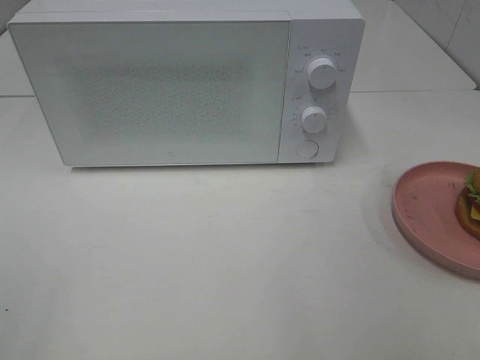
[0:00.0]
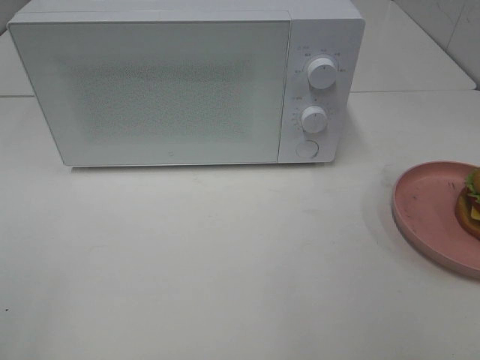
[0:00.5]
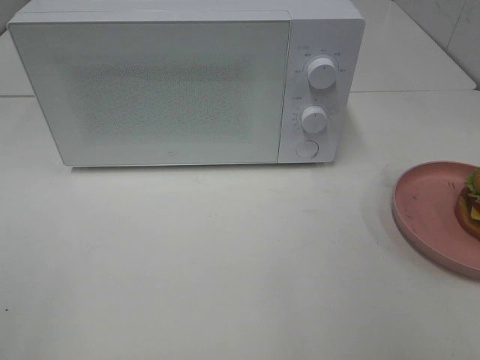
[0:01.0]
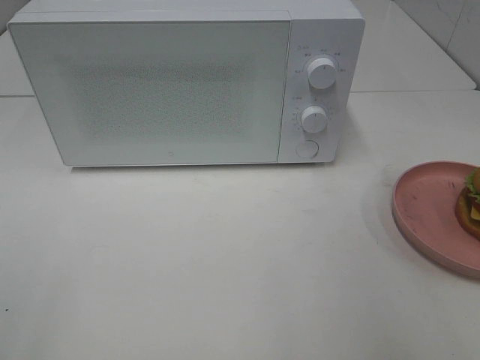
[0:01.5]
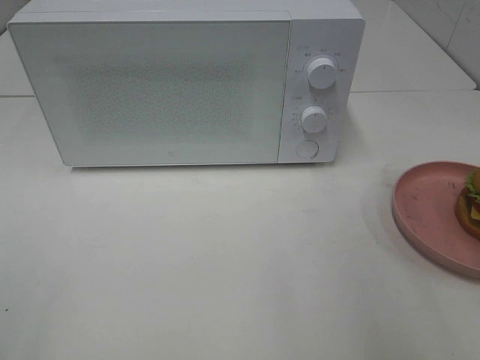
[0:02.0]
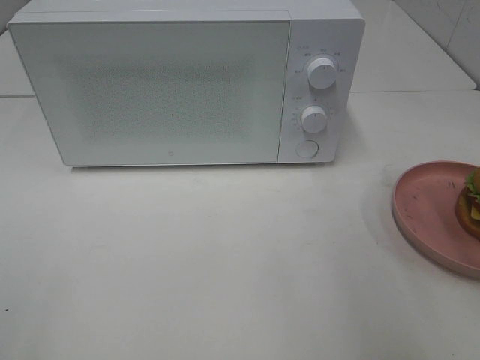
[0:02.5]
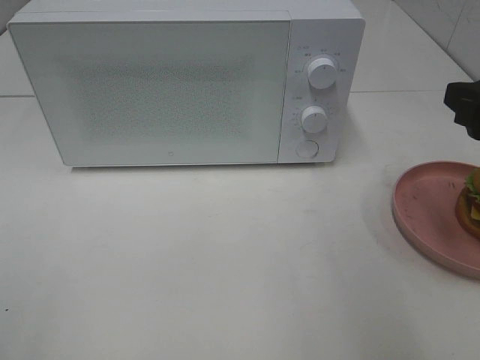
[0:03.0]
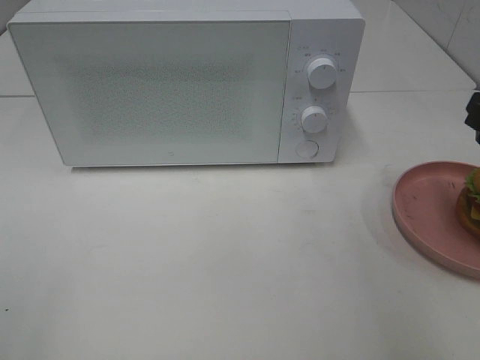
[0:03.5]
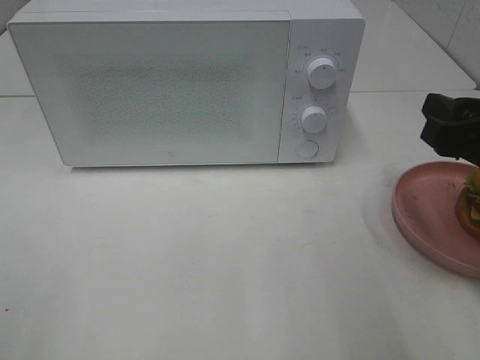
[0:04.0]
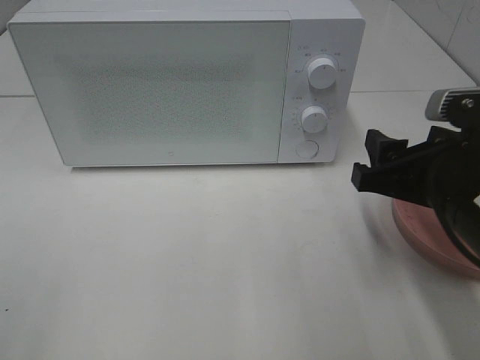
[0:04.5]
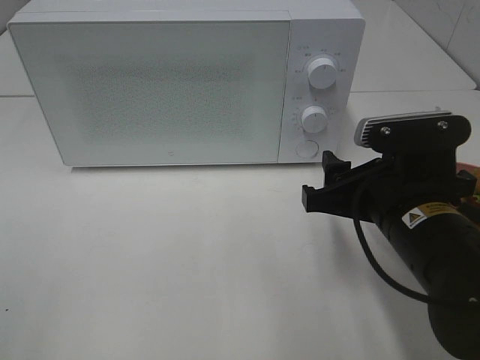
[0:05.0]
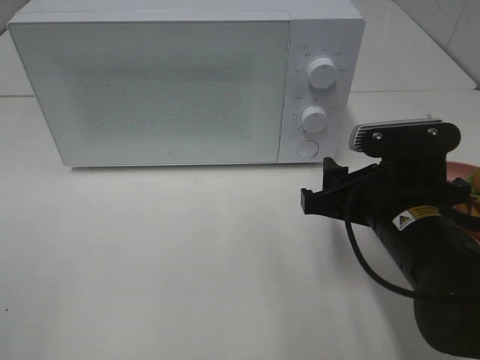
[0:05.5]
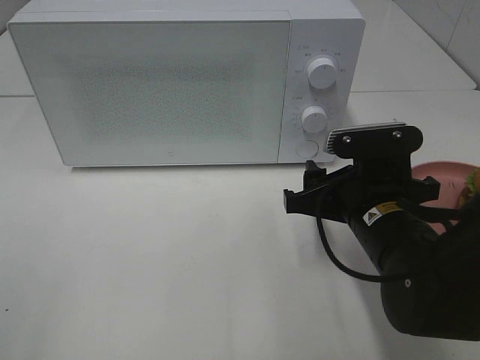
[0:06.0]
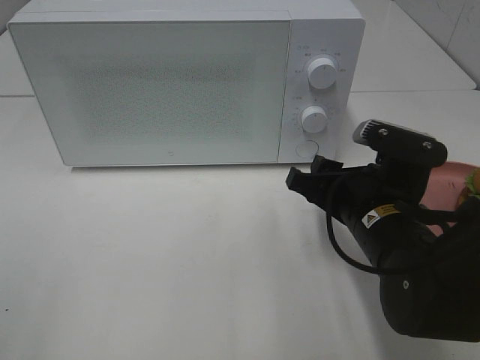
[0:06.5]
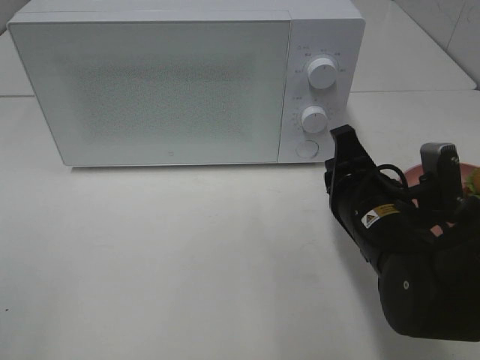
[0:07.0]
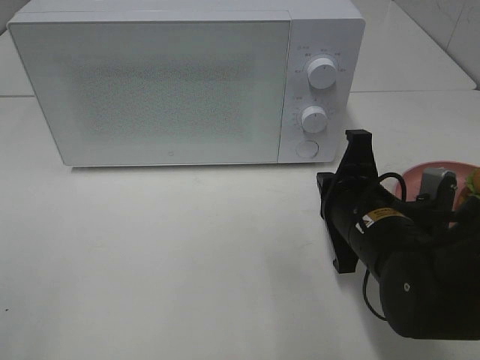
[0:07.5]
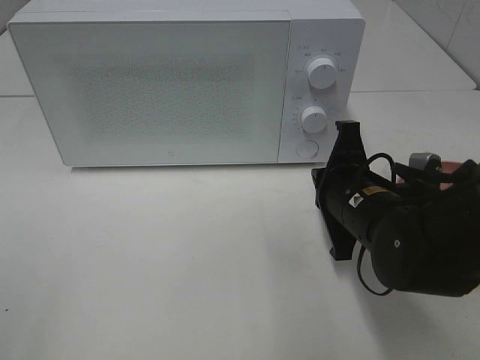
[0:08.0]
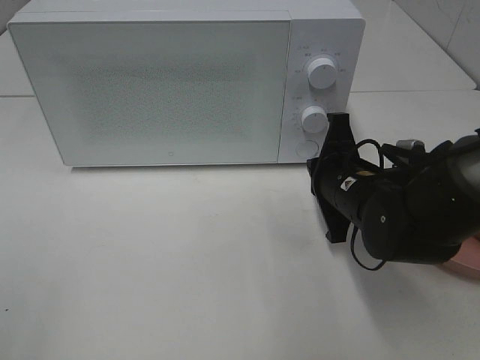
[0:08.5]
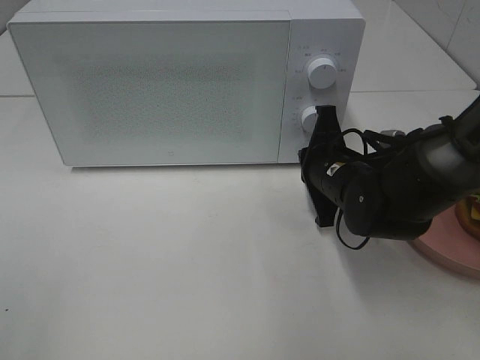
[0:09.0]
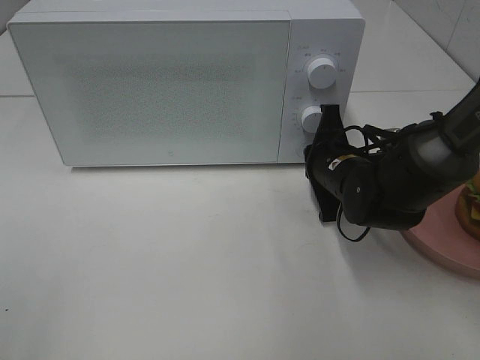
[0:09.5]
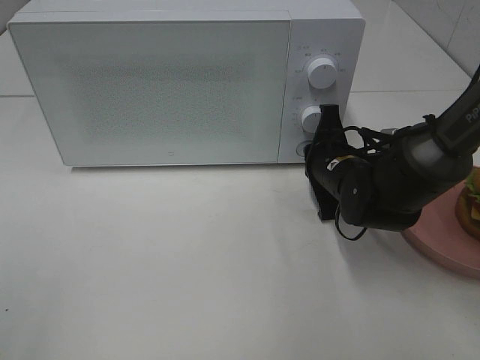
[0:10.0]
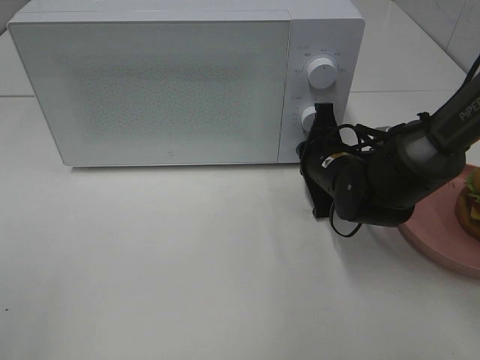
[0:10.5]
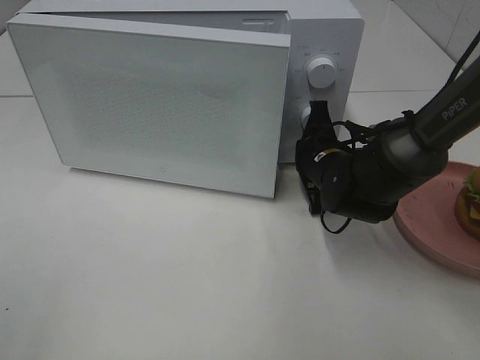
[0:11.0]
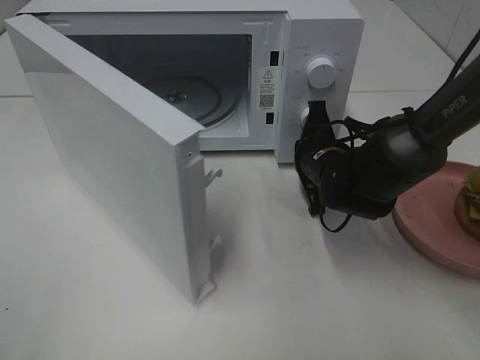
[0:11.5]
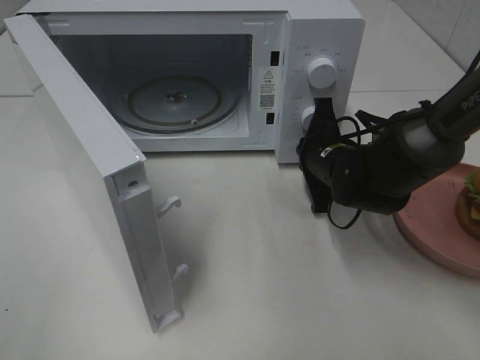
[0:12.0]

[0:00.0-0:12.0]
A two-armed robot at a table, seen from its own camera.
Task of the whole recording: Heat the burger.
0:02.0 to 0:04.0: The right gripper heads forward and downward, covering about 10 cm.
0:04.0 to 0:06.0: The right gripper shifts approximately 15 cm to the left and downward.
0:06.0 to 0:08.0: The right gripper closes.
0:08.0 to 0:10.0: The right gripper is displaced forward by about 10 cm.

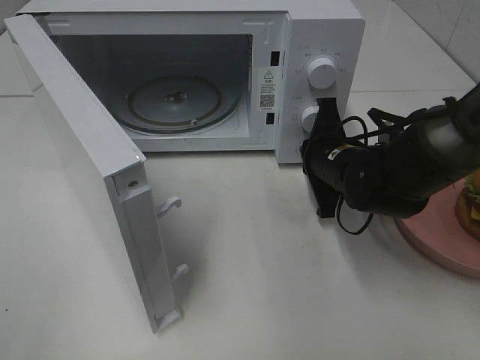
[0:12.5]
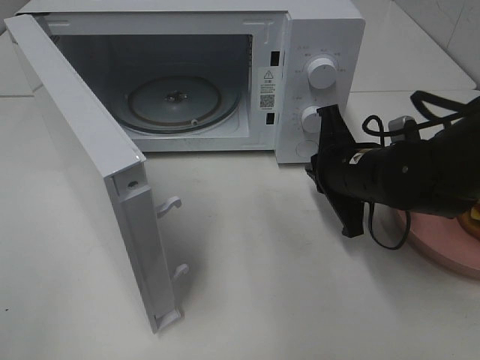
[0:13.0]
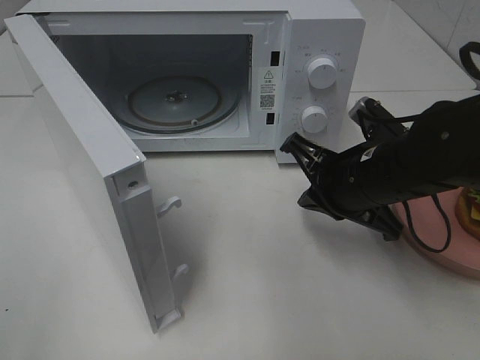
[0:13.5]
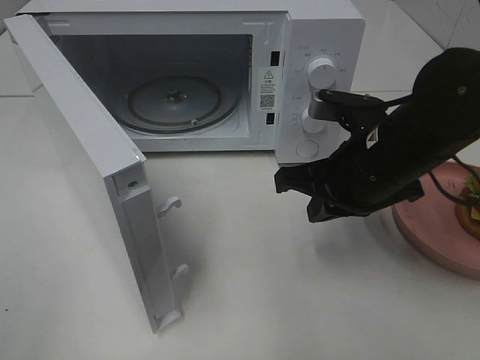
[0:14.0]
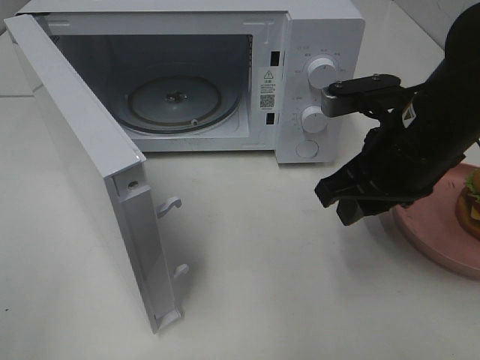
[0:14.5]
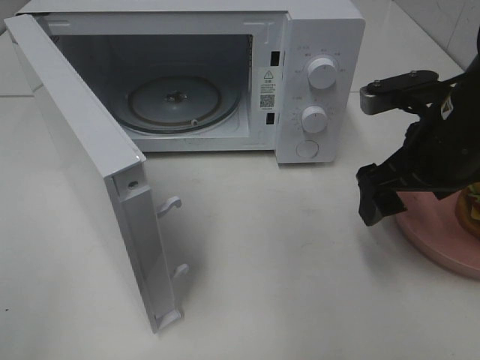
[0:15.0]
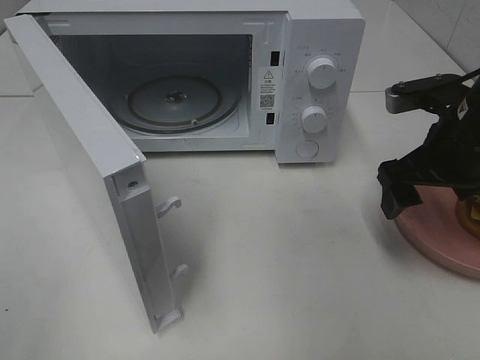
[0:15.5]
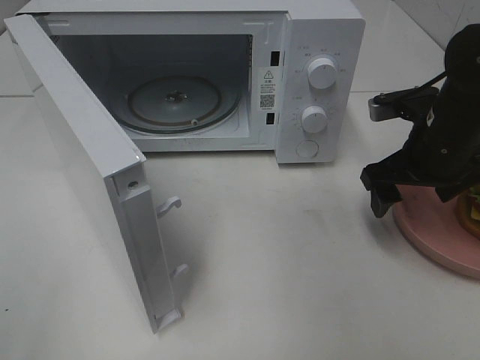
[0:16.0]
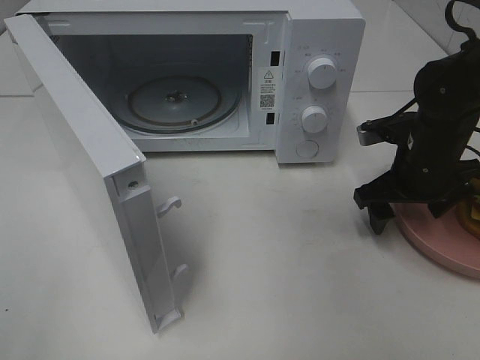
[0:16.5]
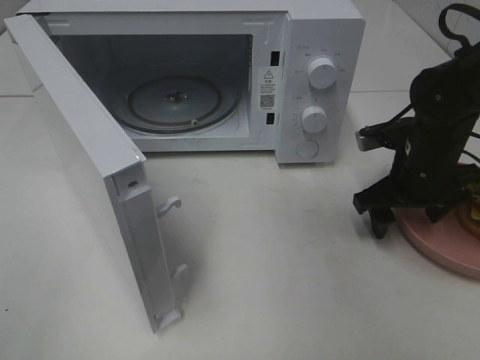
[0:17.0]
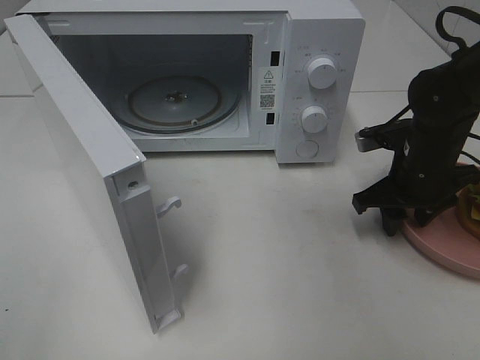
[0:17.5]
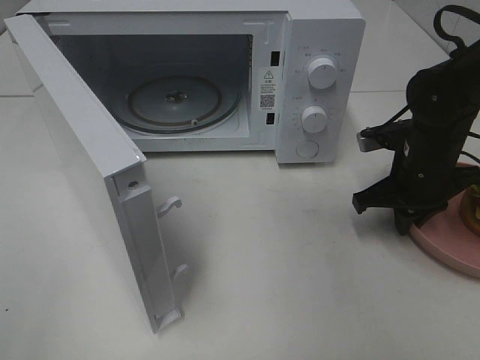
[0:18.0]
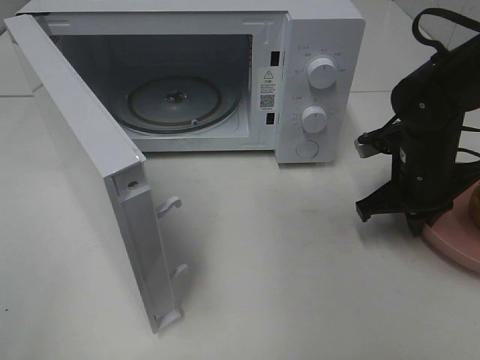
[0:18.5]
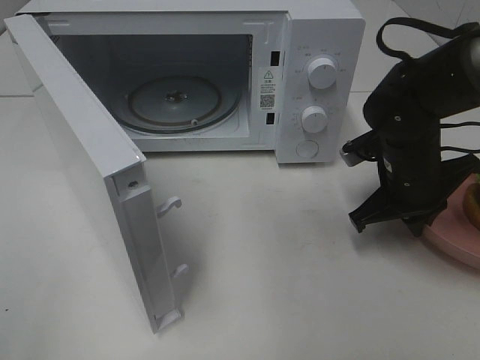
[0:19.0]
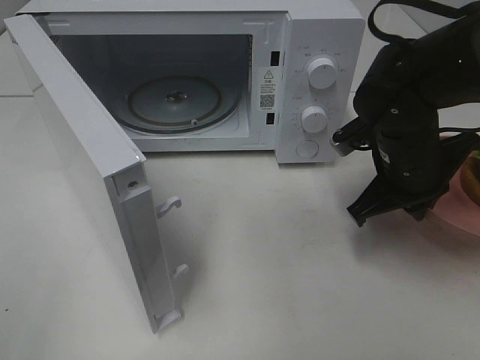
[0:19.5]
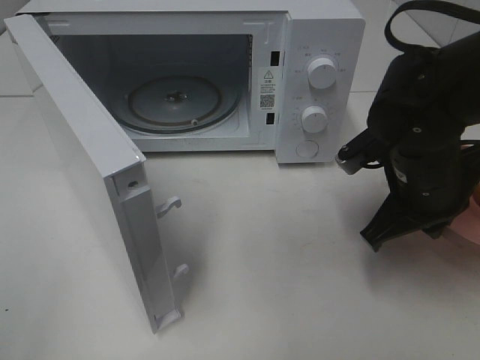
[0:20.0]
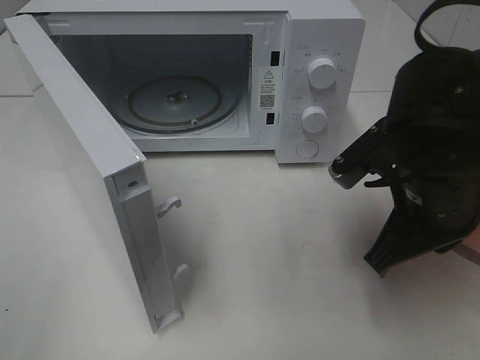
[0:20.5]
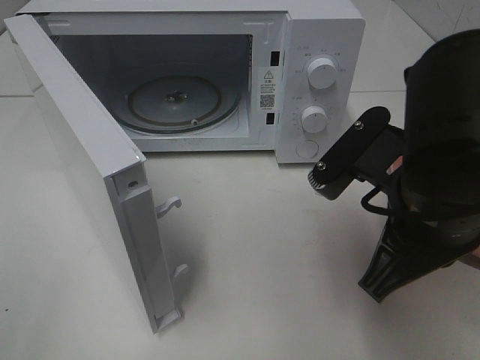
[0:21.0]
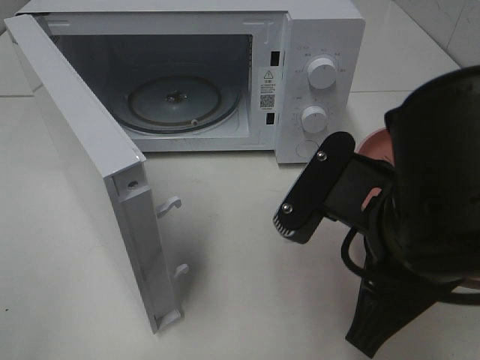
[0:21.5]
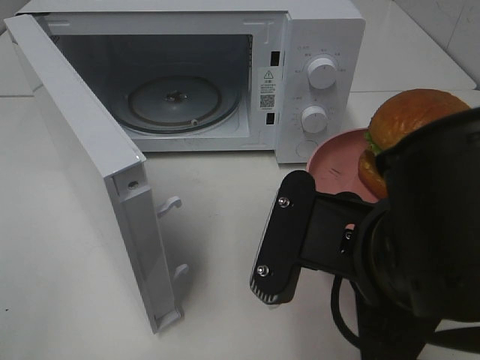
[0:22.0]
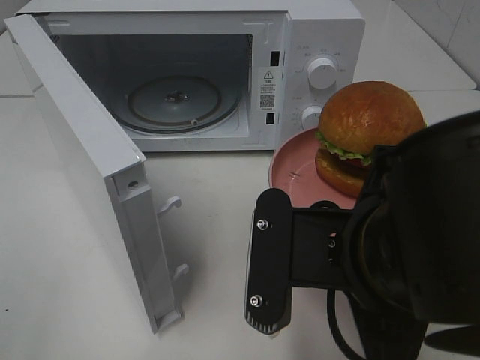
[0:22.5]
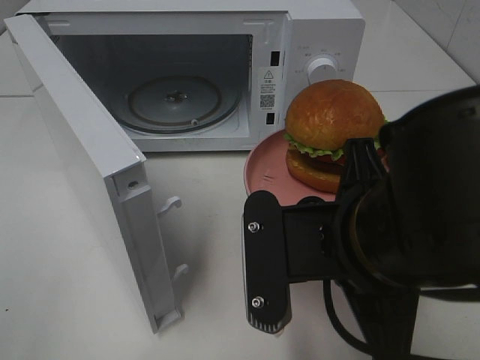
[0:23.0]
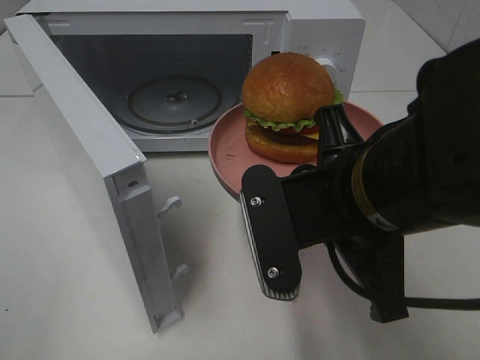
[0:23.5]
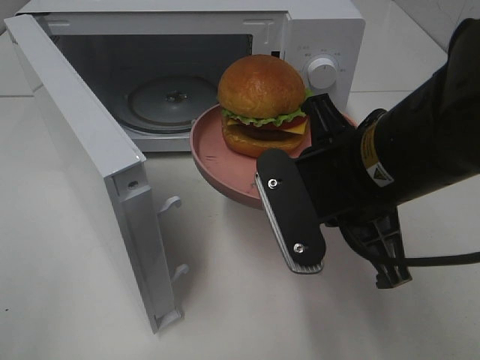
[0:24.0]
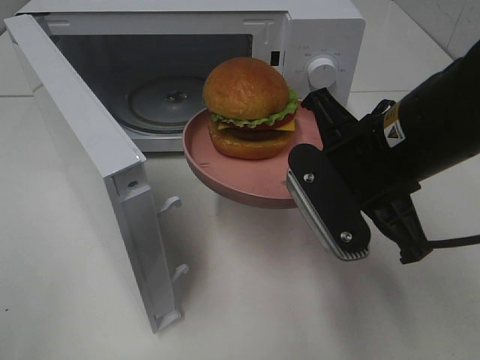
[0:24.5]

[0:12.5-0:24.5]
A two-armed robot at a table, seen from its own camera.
Task of the whole recording: Heat the burger.
Step, 0:13.0 to 0:18.5: Right hand: grab the plate with the hamburger.
0:12.5 to 0:14.5: The right gripper moves upward and backward, some 15 cm, and opens.
0:14.5 to 0:16.5: The right gripper heads downward, forward and to the right, covering approximately 15 cm, and opens its fingers.
0:16.5 to 0:18.5: The right gripper closes.
0:18.5 to 0:20.5: The right gripper is displaced backward, upward and to the left by about 15 cm.
0:20.5 to 0:22.5: The right gripper travels backward and to the left by some 10 cm.
0:22.5 to 0:24.5: The right gripper is displaced forward by approximately 10 cm.

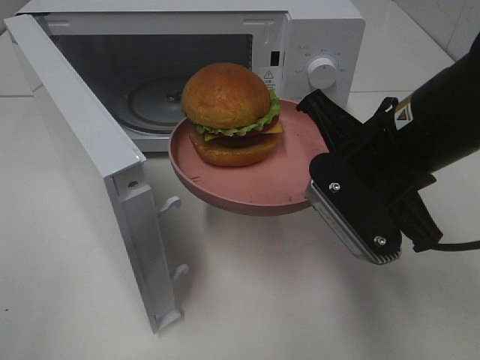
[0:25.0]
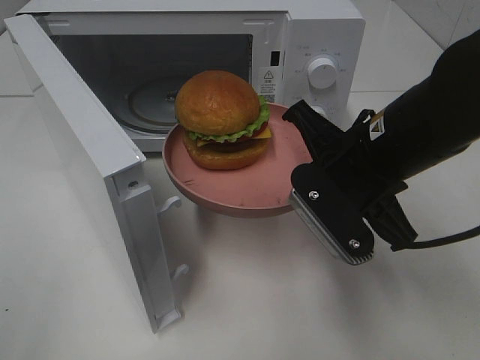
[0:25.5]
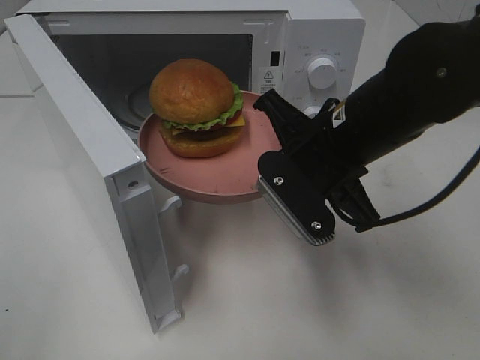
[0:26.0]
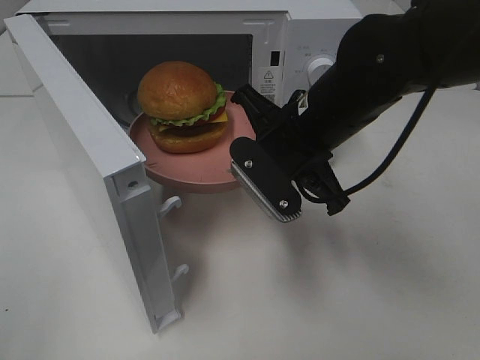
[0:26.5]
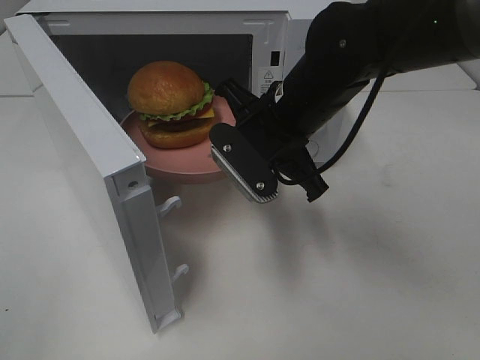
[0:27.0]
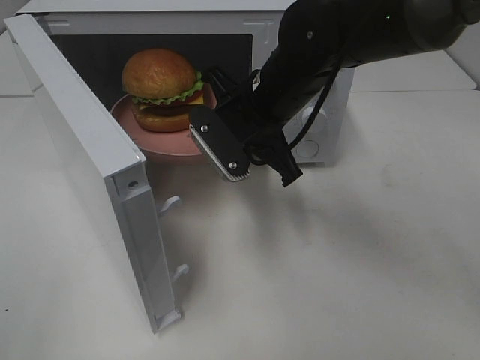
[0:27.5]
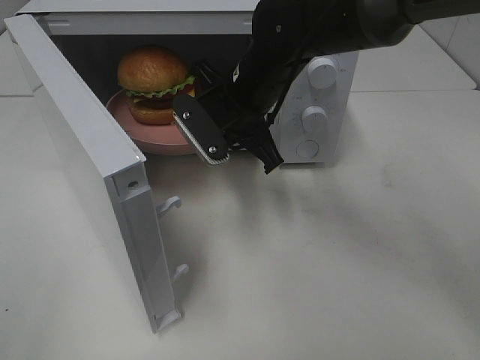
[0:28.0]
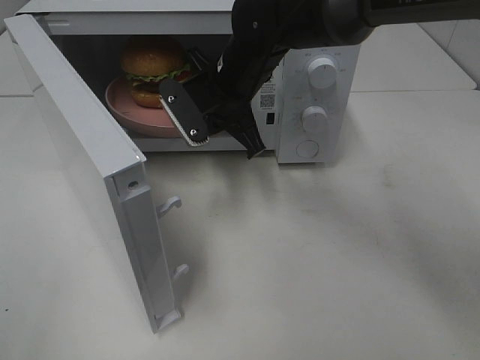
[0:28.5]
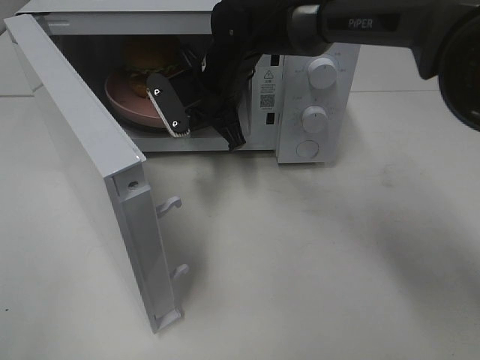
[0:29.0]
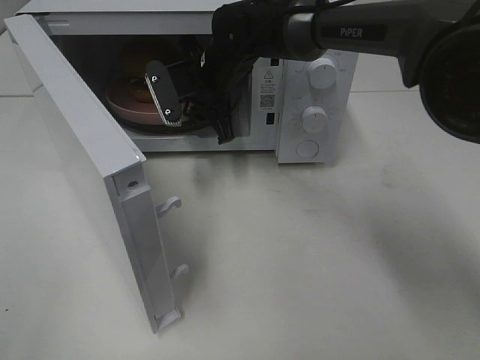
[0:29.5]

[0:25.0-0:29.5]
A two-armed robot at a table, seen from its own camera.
Task of the whole recording: Heat the burger.
0:25.0 to 0:27.0: The right gripper heads forward and to the left, covering about 10 cm.
0:27.0 to 0:29.5: The right gripper heads forward and to the left, covering approximately 15 cm, and opens up.
